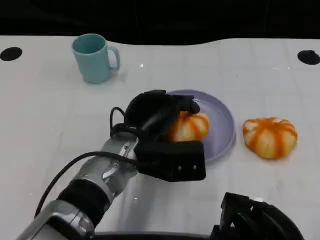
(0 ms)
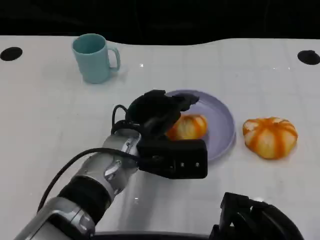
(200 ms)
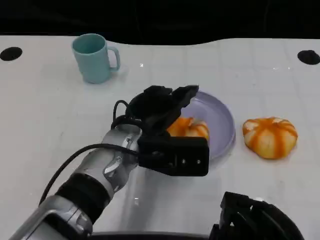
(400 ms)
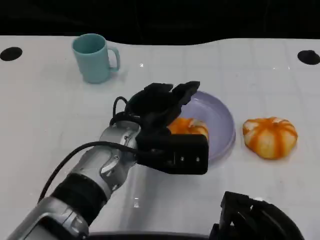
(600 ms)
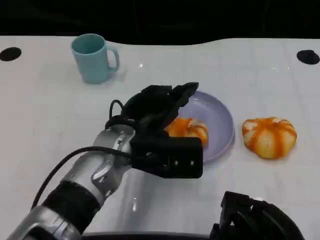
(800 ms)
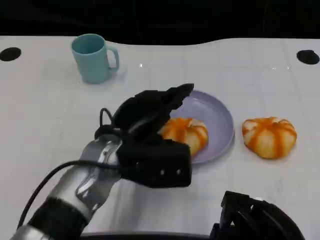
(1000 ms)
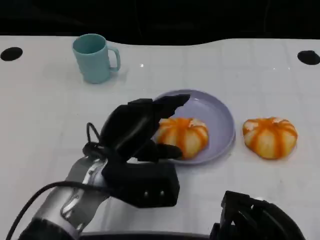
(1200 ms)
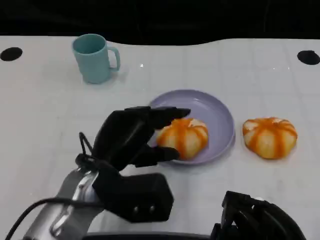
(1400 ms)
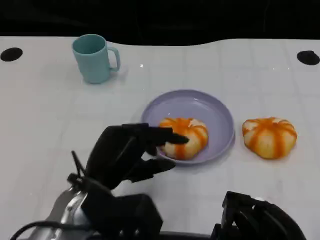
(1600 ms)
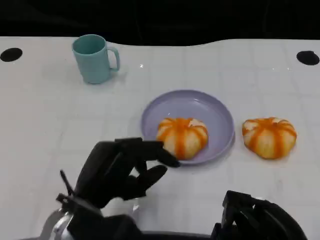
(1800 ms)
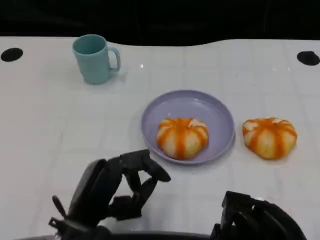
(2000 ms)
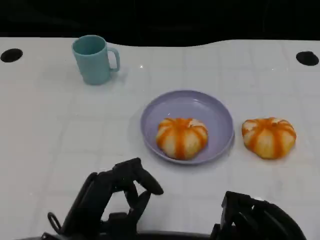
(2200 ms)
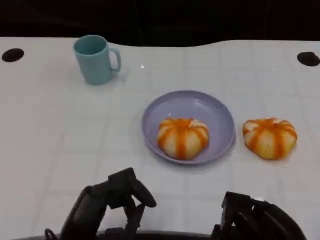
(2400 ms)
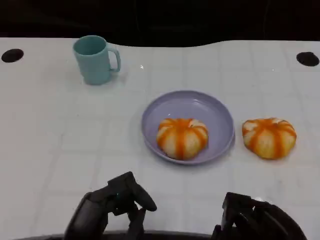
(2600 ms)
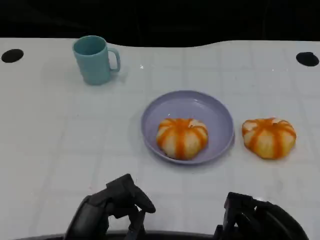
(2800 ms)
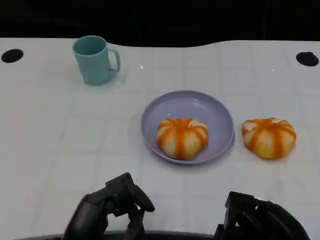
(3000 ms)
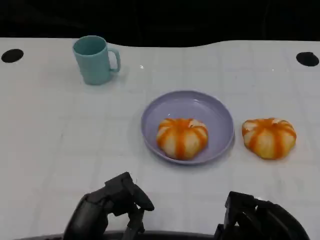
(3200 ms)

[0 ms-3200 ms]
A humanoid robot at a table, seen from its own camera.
Task of the whole recording: Grasp the bread from the table and place it into the plate.
0 ms to 1600 ms: The left hand travels backward and to the left by some 10 cm.
1600 ms to 3200 ms: The left hand is displaced backward by some 5 cm.

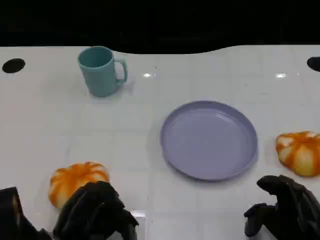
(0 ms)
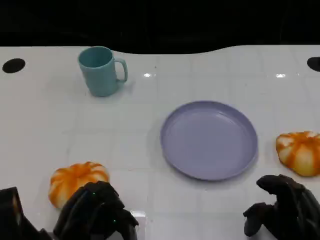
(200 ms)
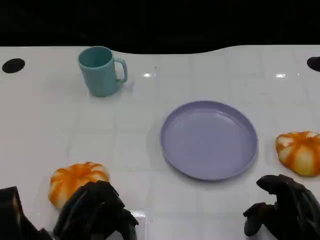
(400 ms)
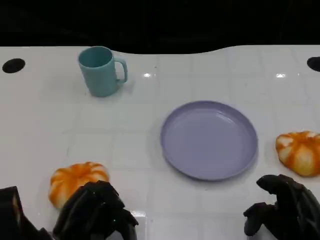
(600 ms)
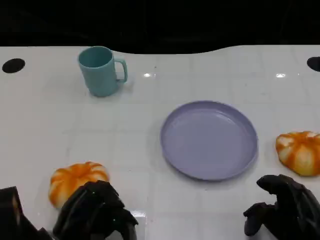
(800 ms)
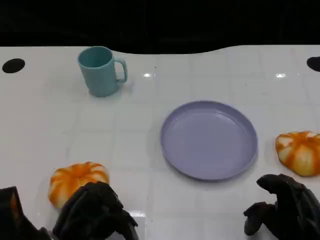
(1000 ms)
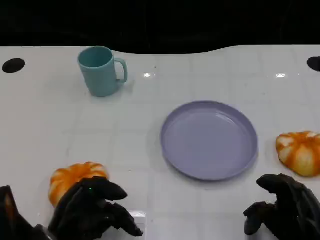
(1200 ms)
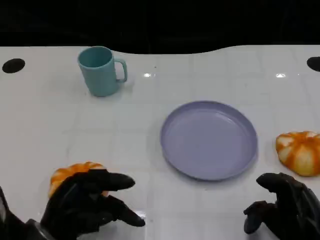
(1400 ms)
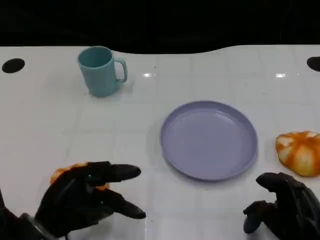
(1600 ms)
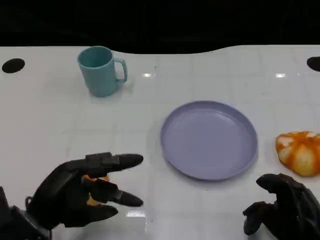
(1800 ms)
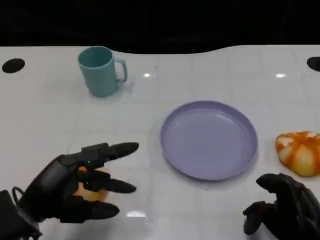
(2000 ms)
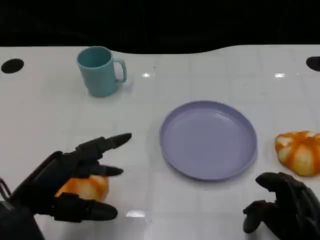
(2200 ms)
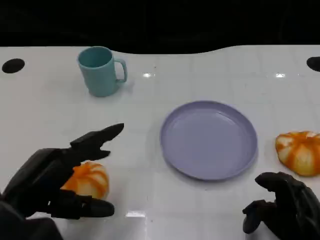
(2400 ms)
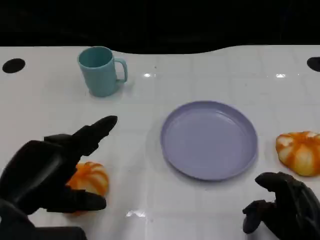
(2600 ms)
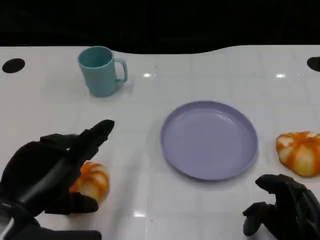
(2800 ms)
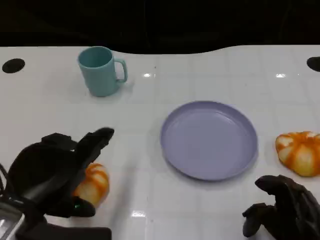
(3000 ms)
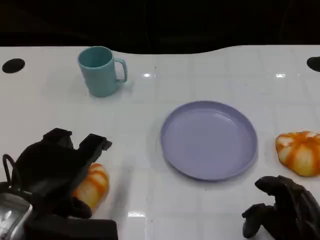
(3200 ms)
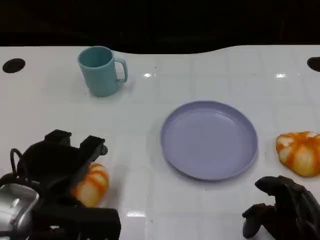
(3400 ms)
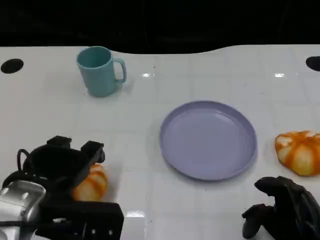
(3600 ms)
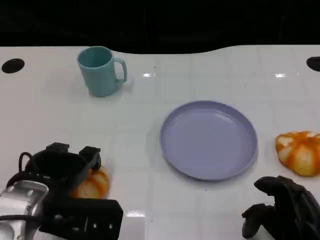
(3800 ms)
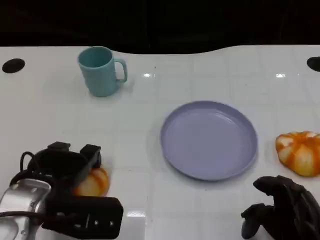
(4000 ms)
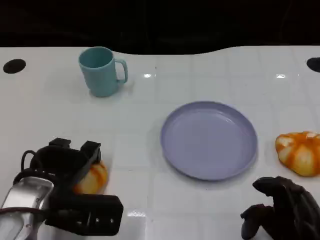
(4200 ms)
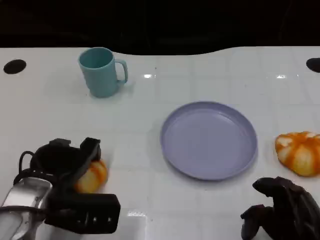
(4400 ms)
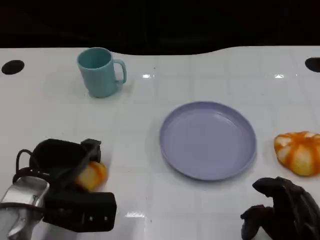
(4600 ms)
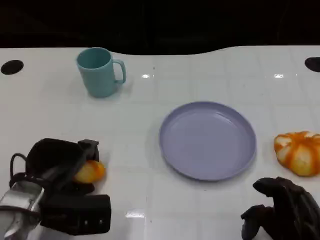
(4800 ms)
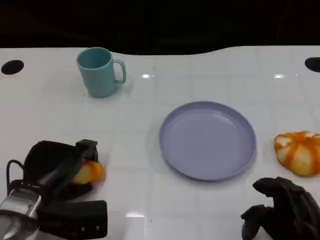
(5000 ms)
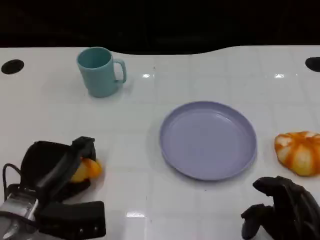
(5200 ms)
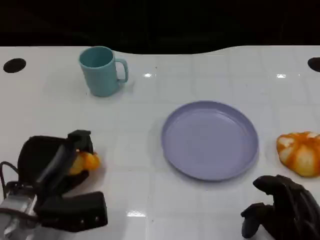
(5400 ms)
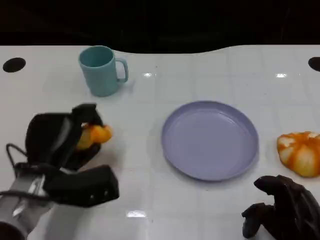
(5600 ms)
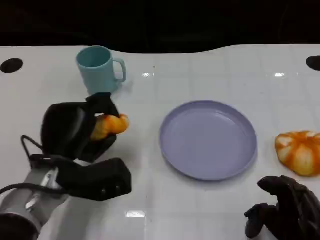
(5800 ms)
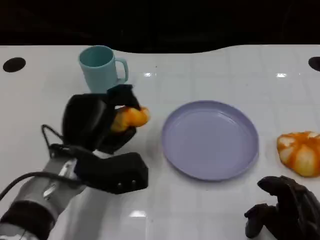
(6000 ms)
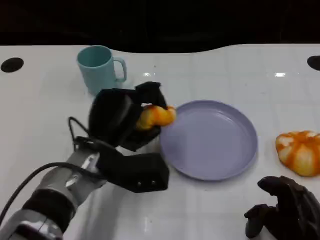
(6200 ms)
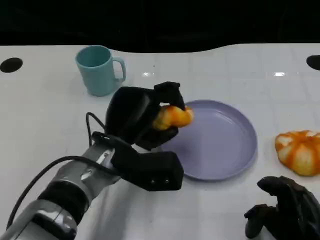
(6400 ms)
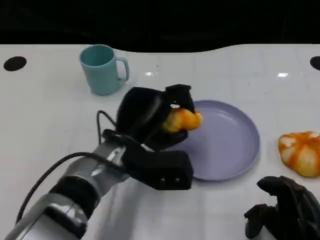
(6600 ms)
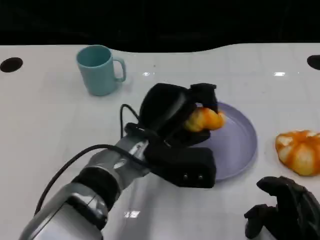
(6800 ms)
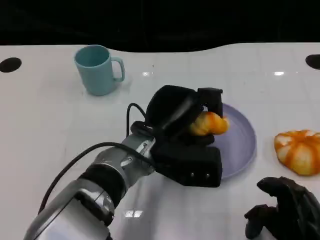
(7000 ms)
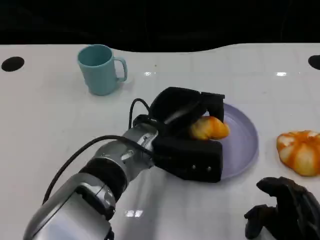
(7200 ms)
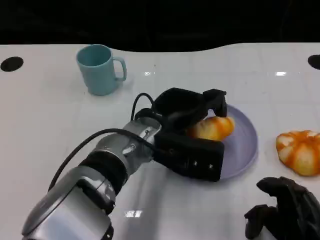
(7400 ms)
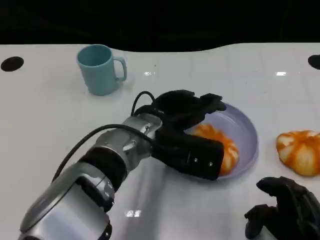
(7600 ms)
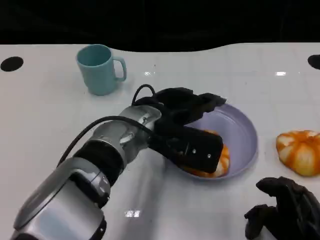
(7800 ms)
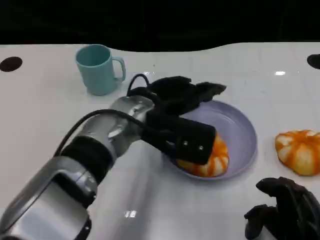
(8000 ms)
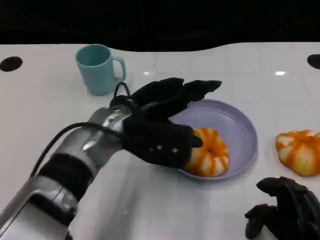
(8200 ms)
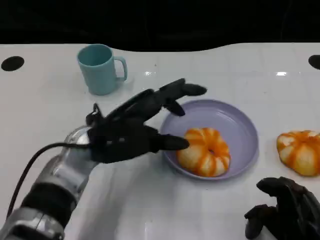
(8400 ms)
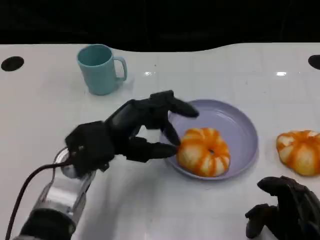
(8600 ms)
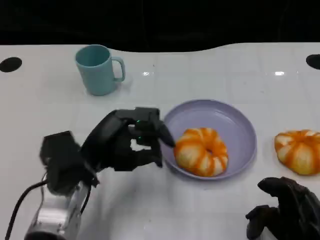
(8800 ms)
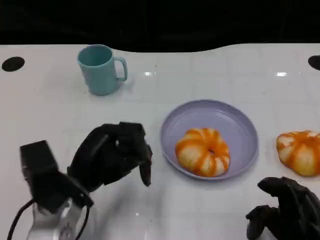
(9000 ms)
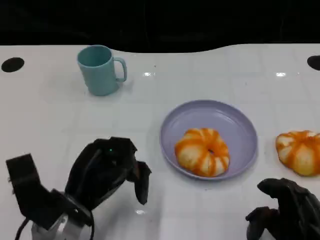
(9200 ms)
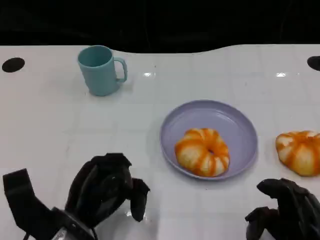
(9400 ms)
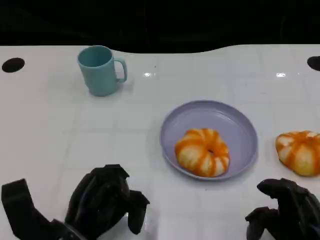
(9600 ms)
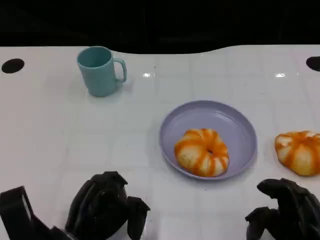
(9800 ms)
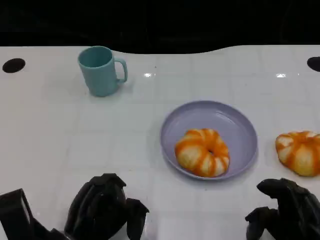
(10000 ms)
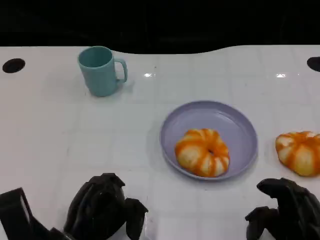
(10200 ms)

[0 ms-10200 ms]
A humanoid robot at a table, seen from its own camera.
Task of the whole recording: Grasp the bread from the table and place it into the plate.
0 ms to 1400 ms: The hands move only a little.
1400 ms to 3000 ms: The left hand heads upward, covering about 10 cm.
3000 ms to 4400 ms: The left hand travels downward and forward by roughly 10 cm.
5800 ms to 7200 ms: The left hand shifts about 15 cm to the right.
7200 ms to 8800 ms: The left hand heads to the left, covering about 10 cm.
8800 ms to 10200 ms: The left hand heads backward and downward, covering roughly 10 cm.

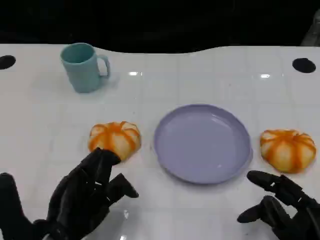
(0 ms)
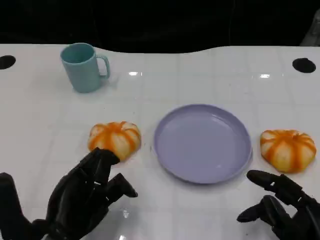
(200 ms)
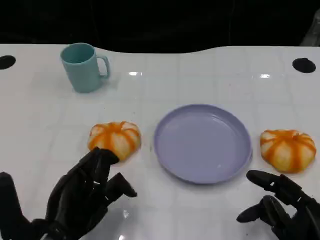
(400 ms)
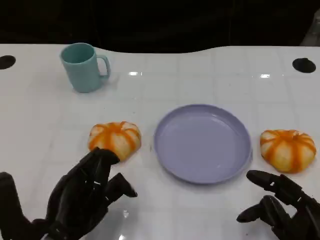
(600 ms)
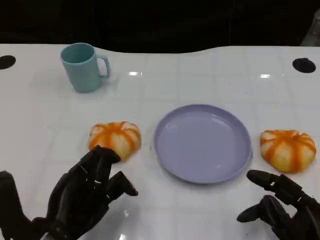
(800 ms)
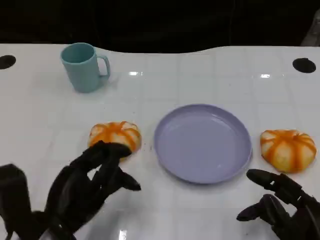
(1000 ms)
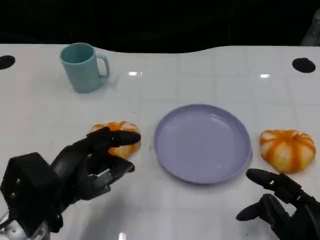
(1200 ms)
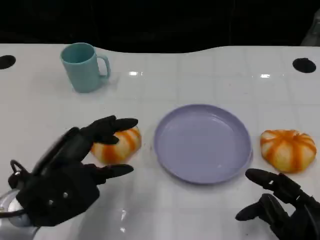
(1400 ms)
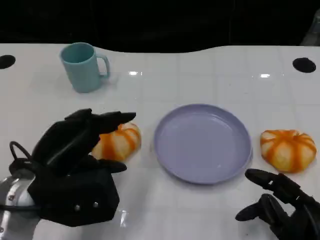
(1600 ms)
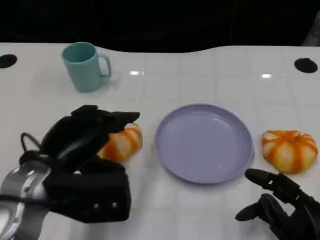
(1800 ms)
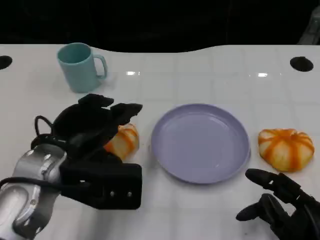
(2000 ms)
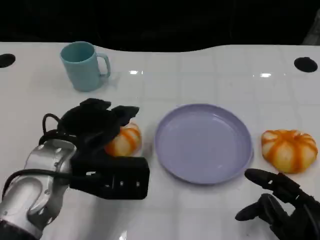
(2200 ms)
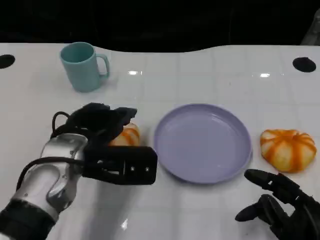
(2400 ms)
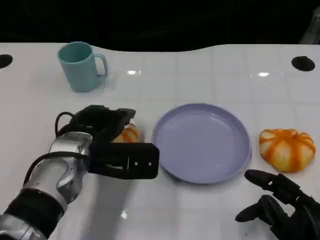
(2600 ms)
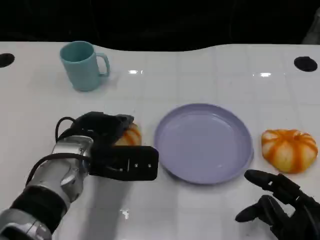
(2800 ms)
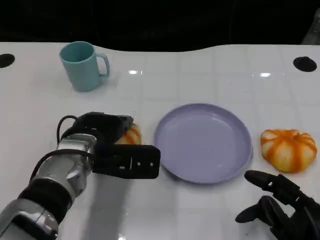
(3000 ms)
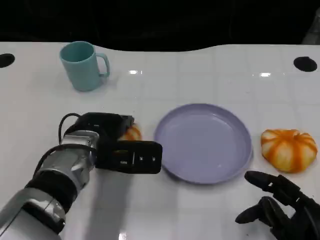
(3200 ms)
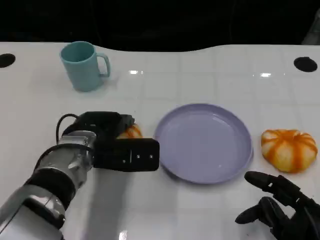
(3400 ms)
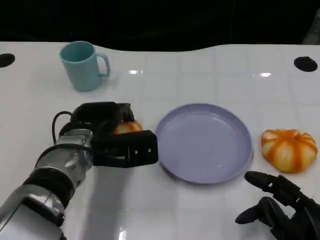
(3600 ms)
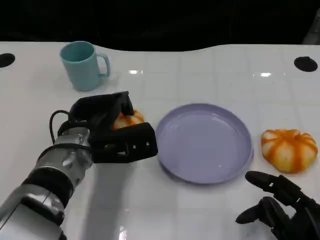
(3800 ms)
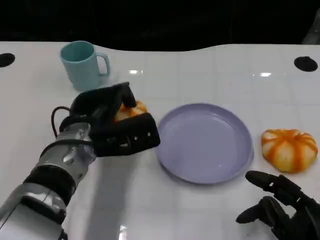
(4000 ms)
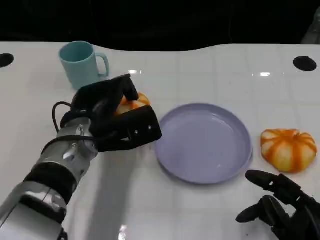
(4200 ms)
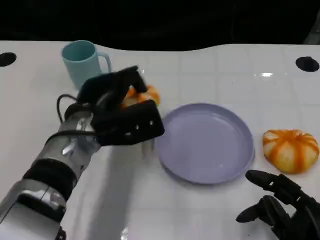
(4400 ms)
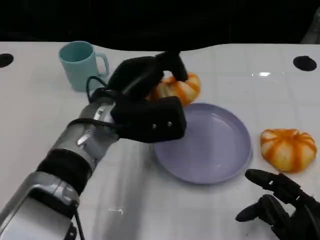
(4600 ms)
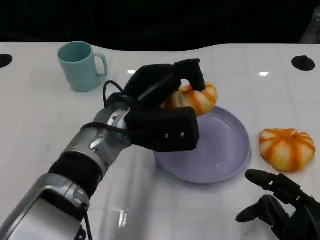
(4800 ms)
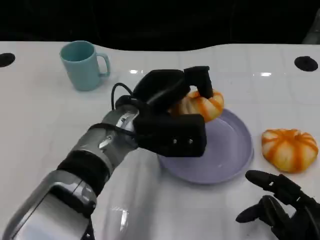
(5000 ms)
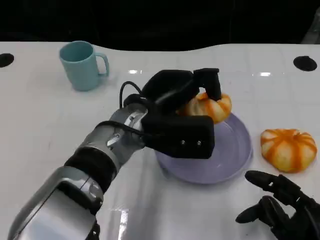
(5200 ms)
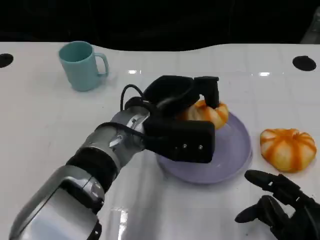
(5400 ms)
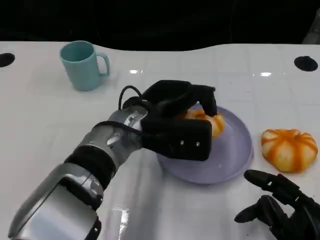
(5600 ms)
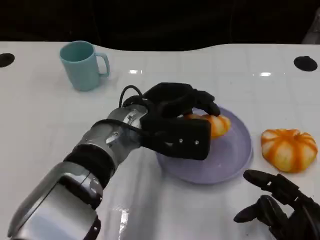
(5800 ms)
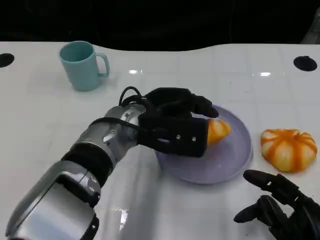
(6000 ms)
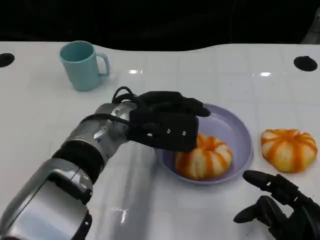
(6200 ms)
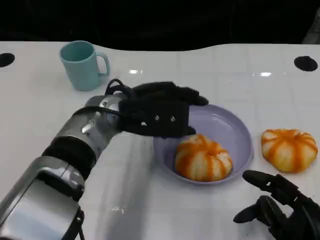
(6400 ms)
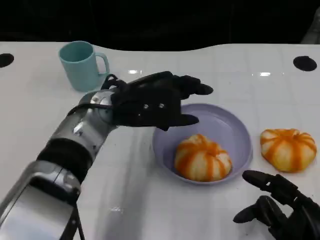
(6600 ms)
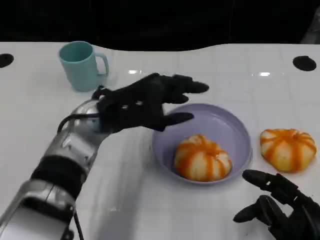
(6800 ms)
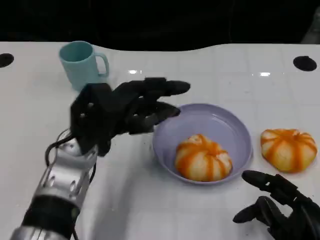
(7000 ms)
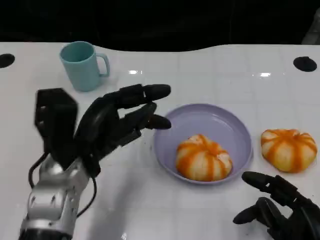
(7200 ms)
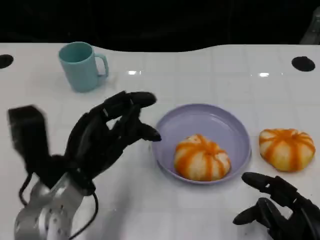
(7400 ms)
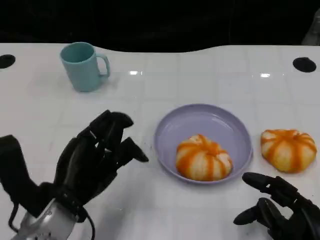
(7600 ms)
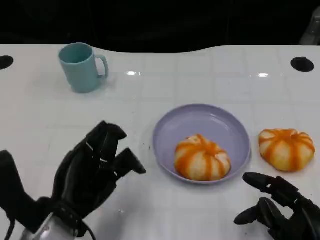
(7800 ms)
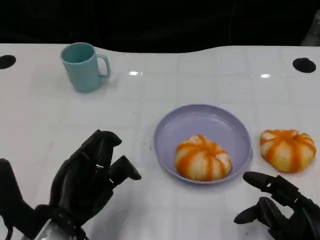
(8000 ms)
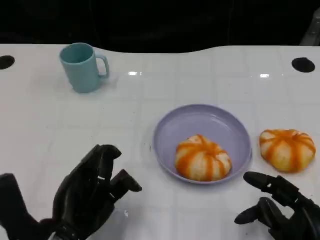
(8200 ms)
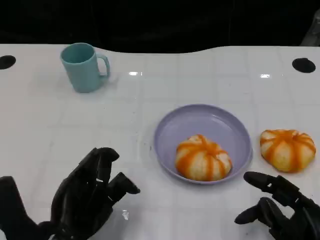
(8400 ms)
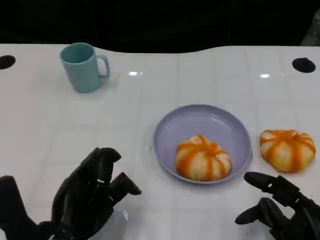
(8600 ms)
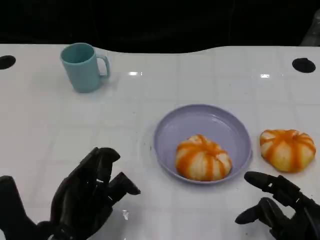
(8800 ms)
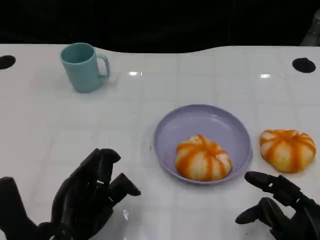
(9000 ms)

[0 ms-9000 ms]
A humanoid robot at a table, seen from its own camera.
Task of the whole recording: Grasp the bread from the table and place it into the plate.
0 ms to 1600 ms: The left hand travels upward by about 5 cm.
1600 ms to 3000 ms: The left hand heads forward and to the right, covering approximately 10 cm.
4400 ms to 6000 ms: The left hand heads to the right, covering roughly 5 cm.
6000 ms to 7600 ms: The left hand goes approximately 15 cm to the left and backward.
7600 ms to 9000 ms: The hands make only small movements.
